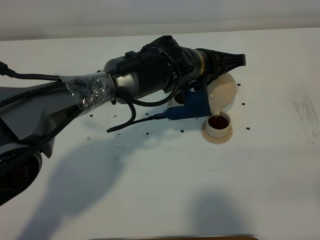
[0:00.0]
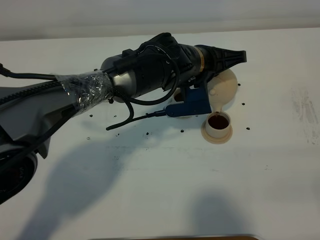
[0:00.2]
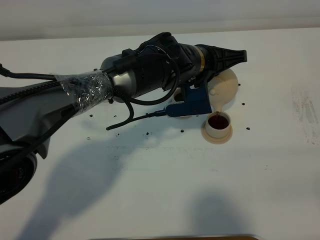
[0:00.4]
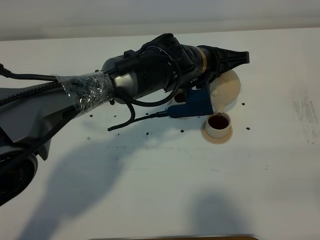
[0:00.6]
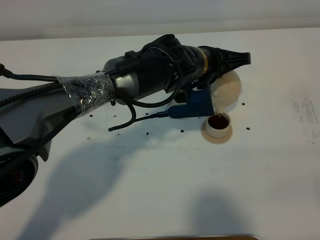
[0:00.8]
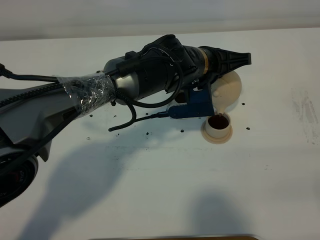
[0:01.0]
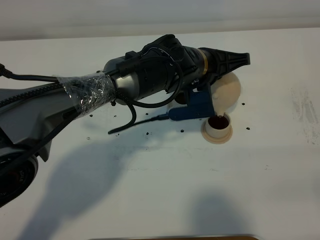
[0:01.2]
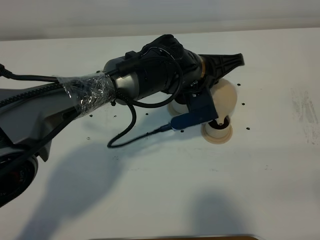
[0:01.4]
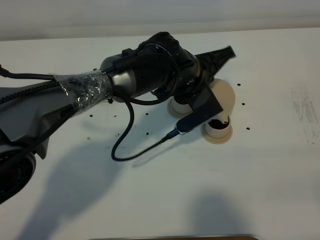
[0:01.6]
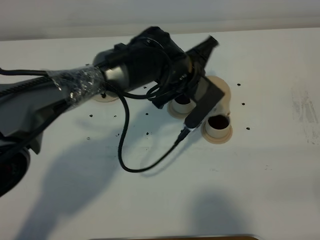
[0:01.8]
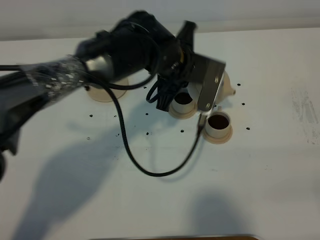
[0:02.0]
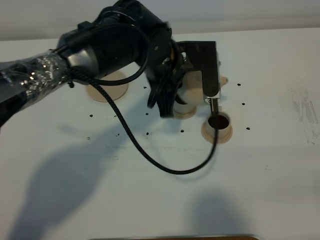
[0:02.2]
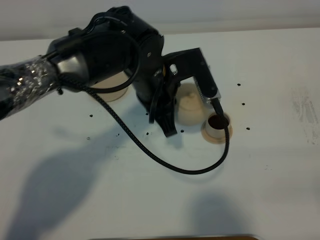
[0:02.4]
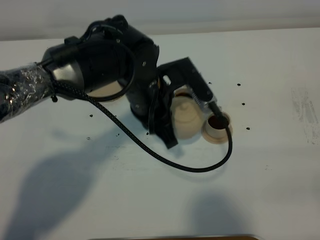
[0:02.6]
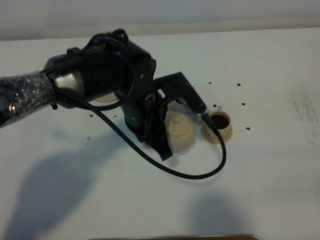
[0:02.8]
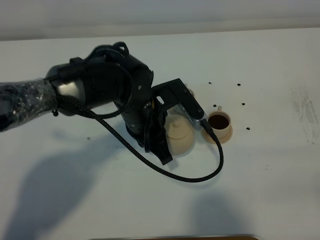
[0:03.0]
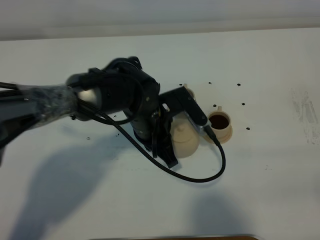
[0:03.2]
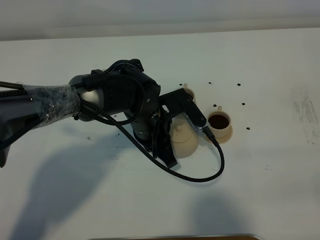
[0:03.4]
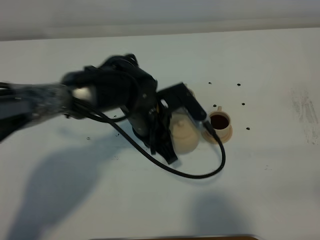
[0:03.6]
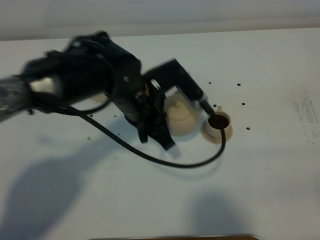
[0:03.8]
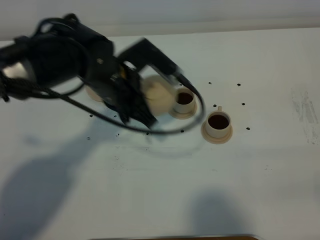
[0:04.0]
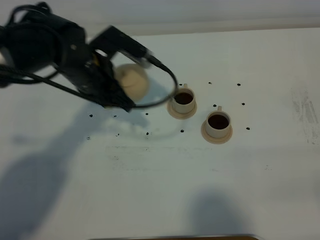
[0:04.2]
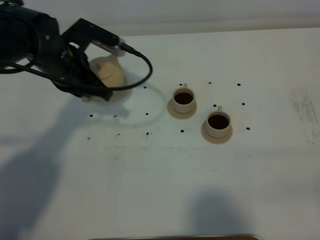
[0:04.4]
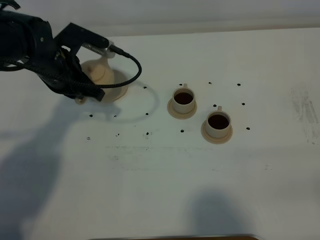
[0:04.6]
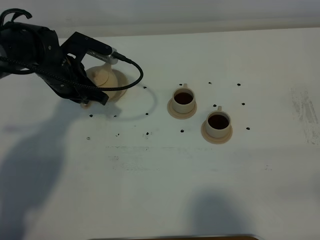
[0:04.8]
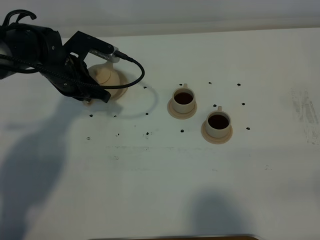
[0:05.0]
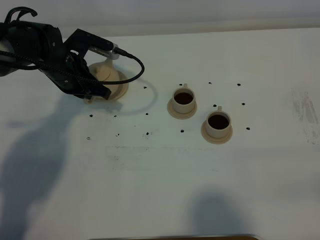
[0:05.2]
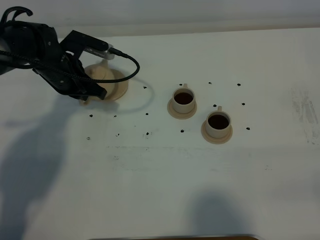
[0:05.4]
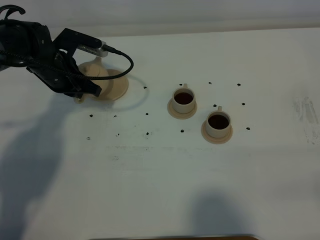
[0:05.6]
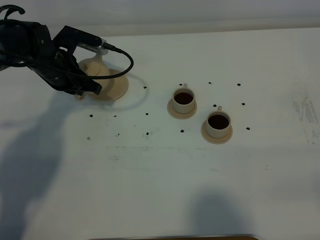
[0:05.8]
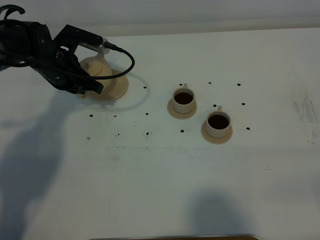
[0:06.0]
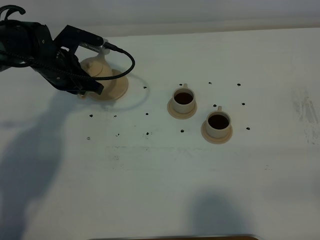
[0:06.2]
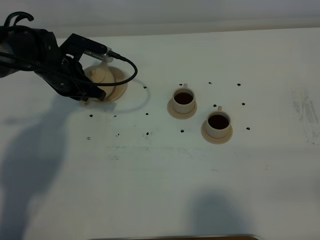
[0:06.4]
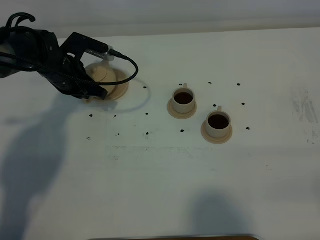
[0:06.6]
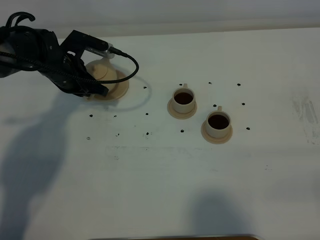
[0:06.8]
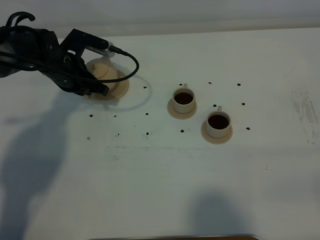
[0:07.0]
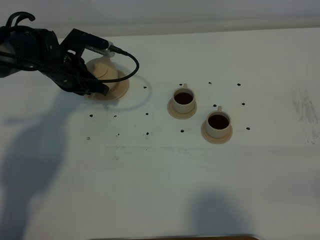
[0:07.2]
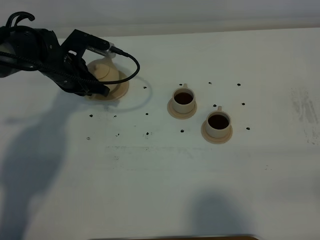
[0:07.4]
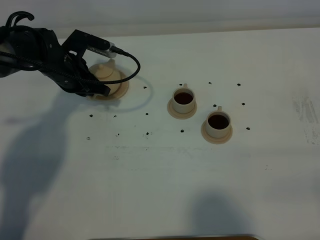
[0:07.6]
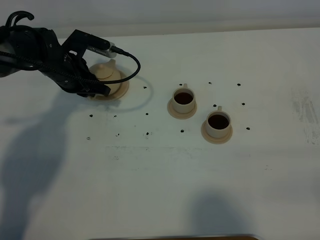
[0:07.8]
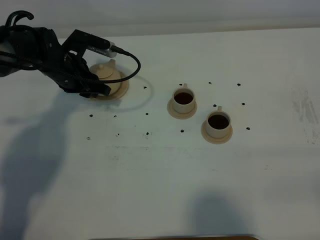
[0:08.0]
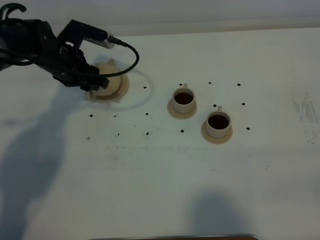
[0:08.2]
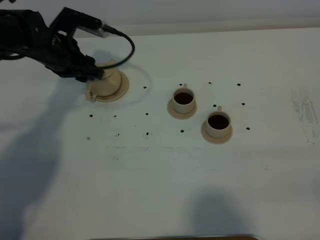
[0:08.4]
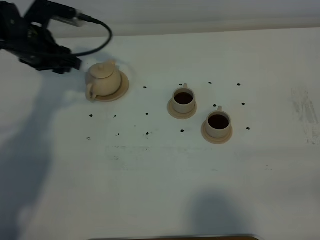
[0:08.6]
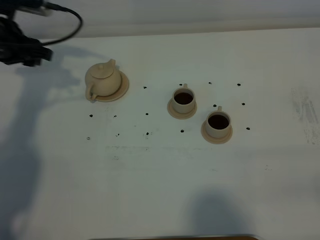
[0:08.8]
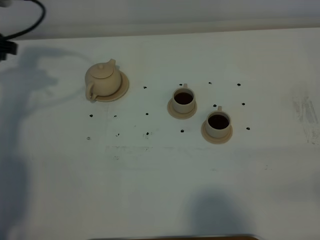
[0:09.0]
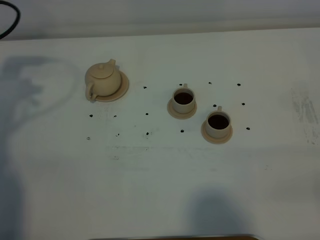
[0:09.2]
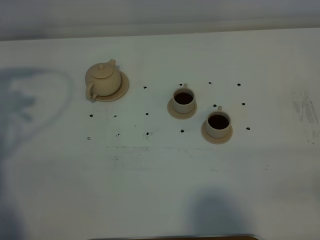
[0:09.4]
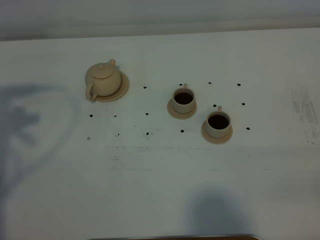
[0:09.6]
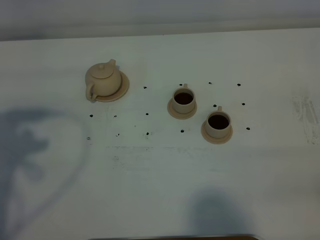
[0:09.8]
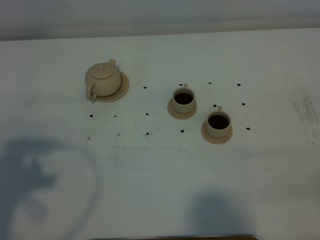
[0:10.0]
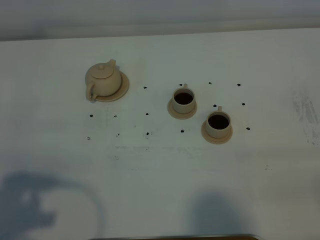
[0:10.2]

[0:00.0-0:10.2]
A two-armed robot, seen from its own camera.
Task of the whole recording: grasp the brown teapot and pour the tea into the two brown teacups one by one, put the brown teapot back in its original place.
0:00.0 to 0:01.4: The grippers move only a little.
0:01.4 to 0:03.0: The left gripper heads to the left and backward, covering roughly 10 cm.
0:03.0 to 0:04.4: The left gripper is displaced to the left and forward by approximately 15 cm.
0:04.4 to 0:05.8: The left gripper shifts roughly 10 cm downward and forward.
0:05.8 to 0:07.2: The grippers stay close to where they were, moving slightly.
0:07.2 to 0:08.8: The left gripper heads upward and to the left, covering some 15 cm, and opens its fingers.
0:08.8 to 0:10.2: The left gripper shifts roughly 35 cm backward.

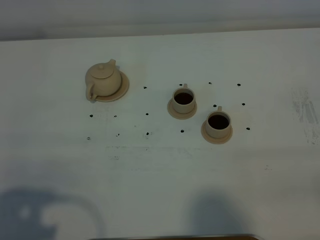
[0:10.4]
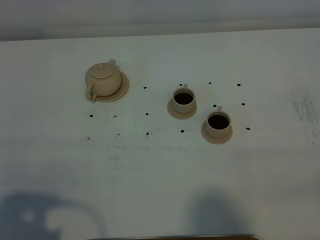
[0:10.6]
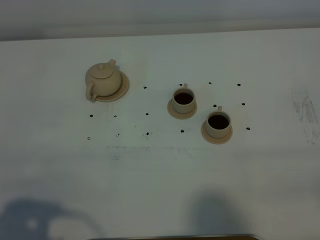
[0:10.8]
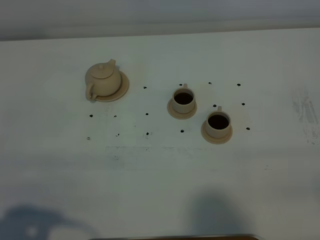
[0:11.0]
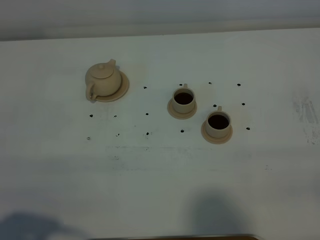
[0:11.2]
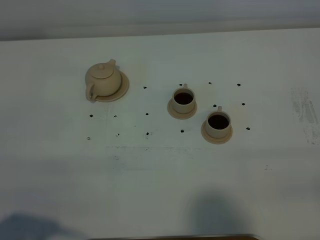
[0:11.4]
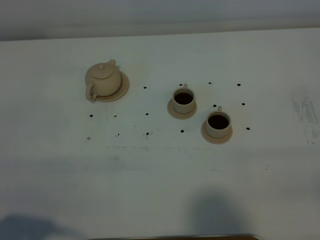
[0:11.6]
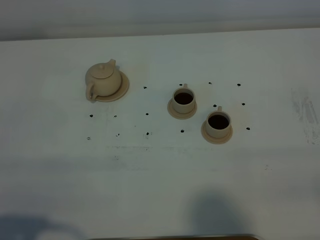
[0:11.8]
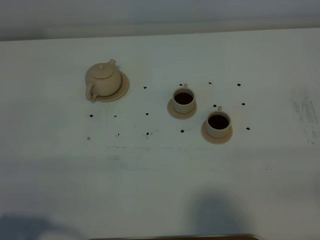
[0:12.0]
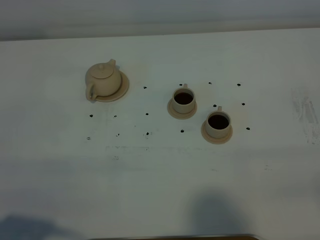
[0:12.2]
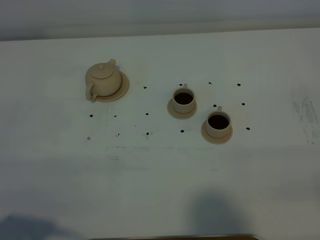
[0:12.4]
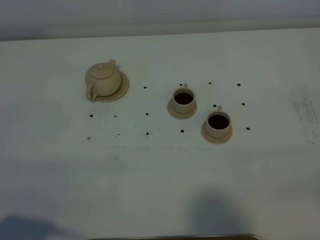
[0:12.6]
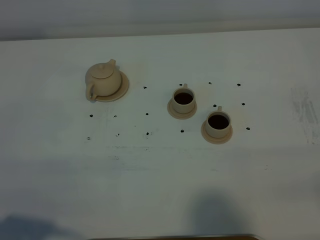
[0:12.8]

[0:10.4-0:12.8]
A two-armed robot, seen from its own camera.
Task of the whole recording: grasp the brown teapot and pour the tea into the two brown teacups one by one, put the brown teapot back in its original place.
0:10.4 to 0:11.6: The grippers move only a little.
0:11.6 to 0:12.8: Both grippers stay about where they are.

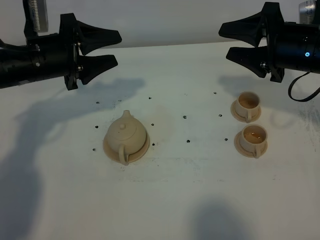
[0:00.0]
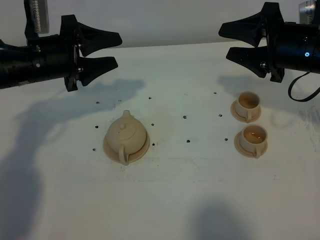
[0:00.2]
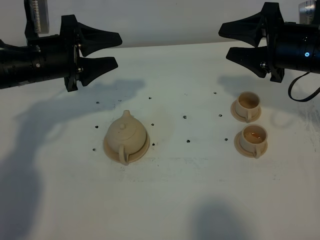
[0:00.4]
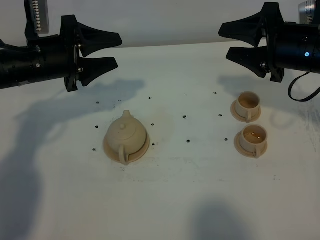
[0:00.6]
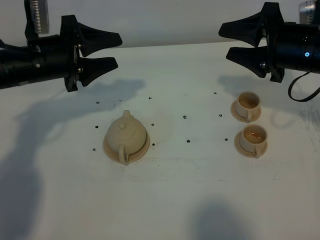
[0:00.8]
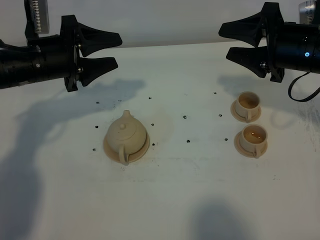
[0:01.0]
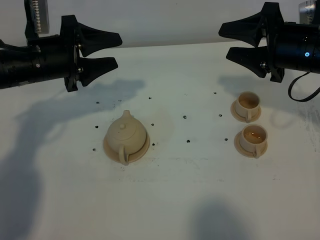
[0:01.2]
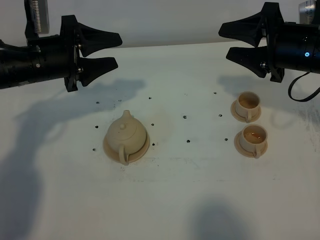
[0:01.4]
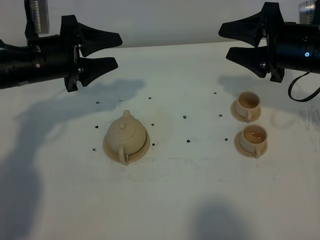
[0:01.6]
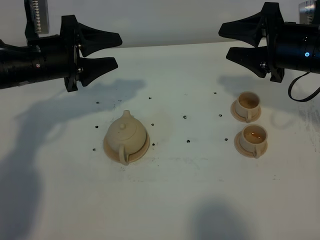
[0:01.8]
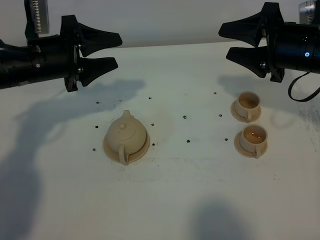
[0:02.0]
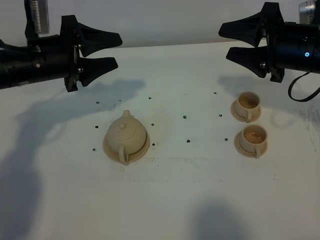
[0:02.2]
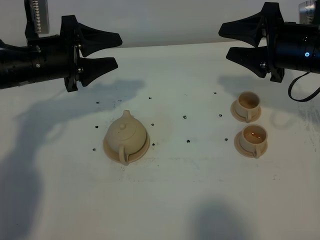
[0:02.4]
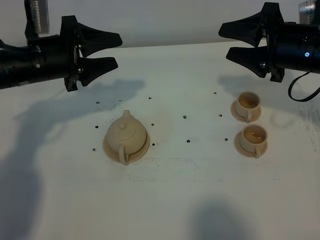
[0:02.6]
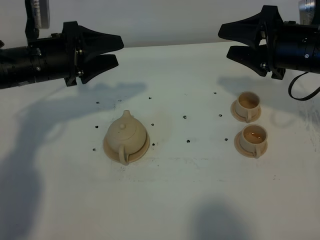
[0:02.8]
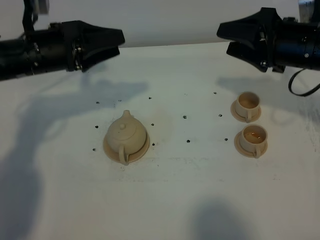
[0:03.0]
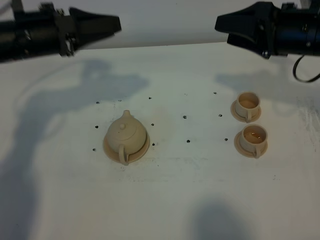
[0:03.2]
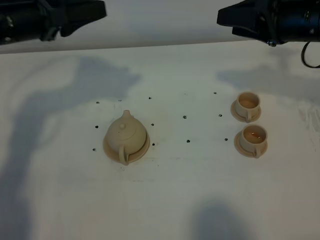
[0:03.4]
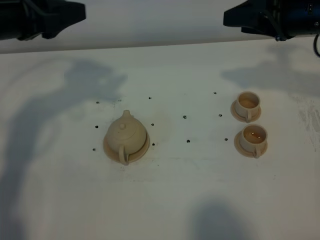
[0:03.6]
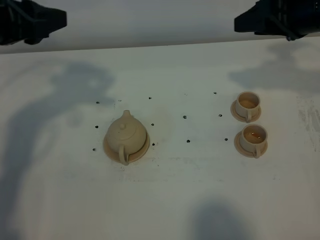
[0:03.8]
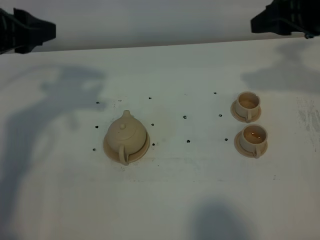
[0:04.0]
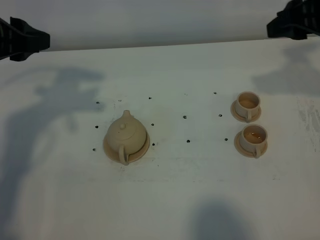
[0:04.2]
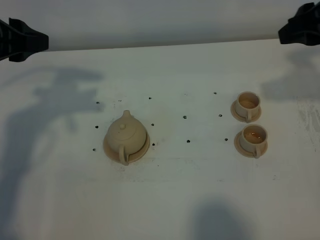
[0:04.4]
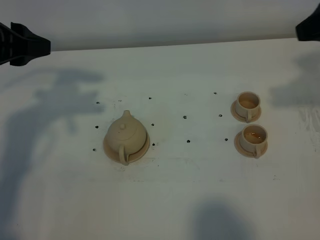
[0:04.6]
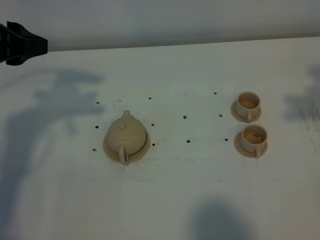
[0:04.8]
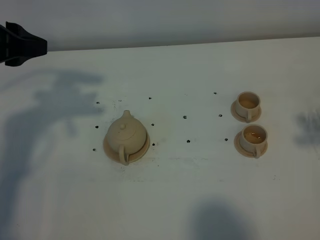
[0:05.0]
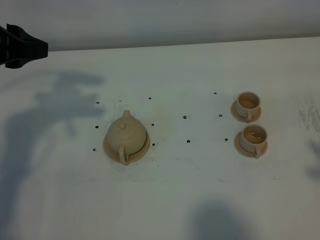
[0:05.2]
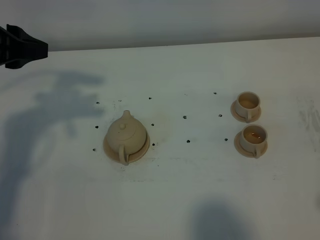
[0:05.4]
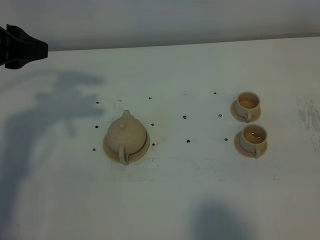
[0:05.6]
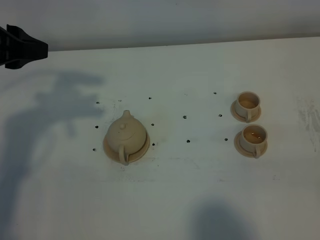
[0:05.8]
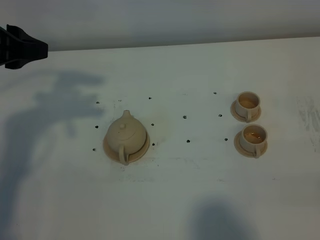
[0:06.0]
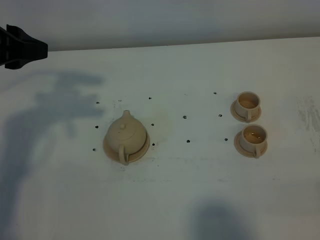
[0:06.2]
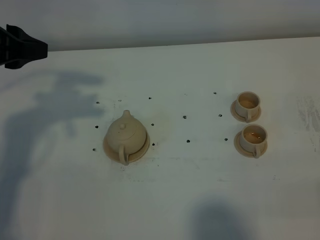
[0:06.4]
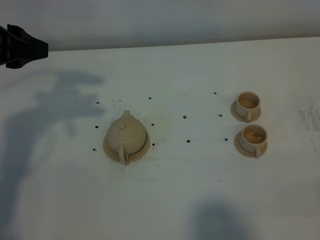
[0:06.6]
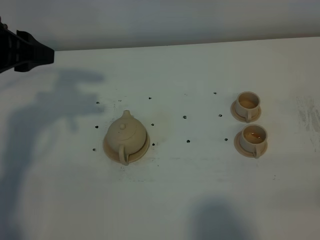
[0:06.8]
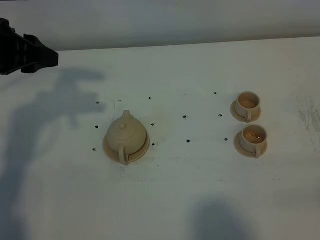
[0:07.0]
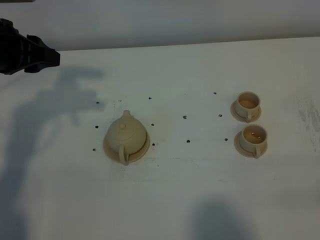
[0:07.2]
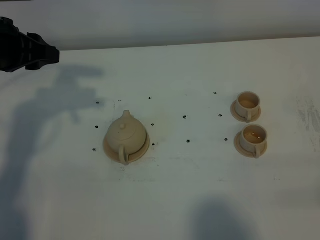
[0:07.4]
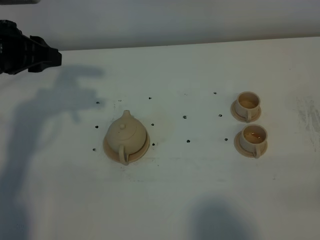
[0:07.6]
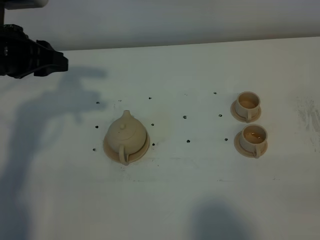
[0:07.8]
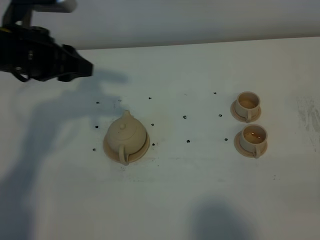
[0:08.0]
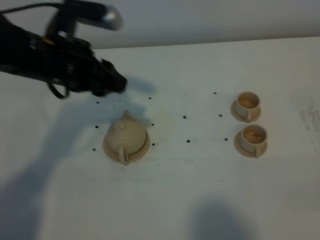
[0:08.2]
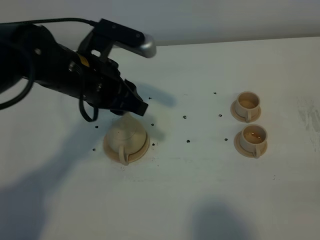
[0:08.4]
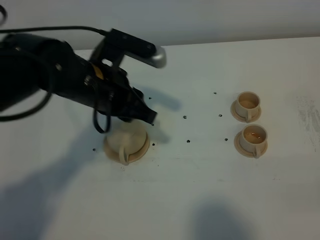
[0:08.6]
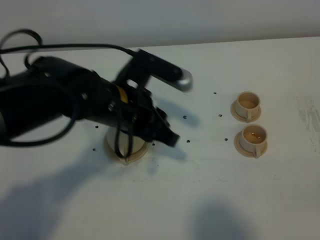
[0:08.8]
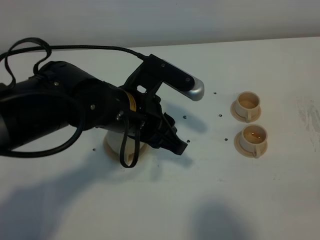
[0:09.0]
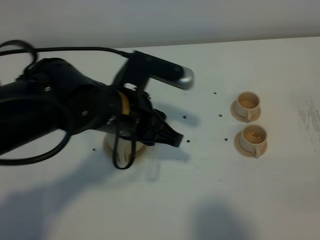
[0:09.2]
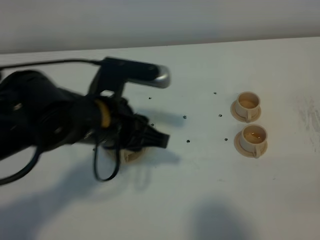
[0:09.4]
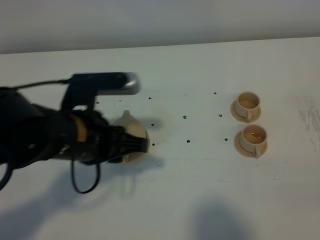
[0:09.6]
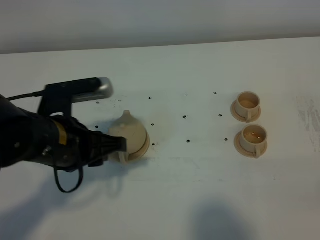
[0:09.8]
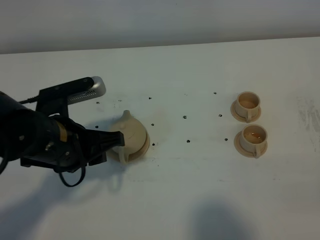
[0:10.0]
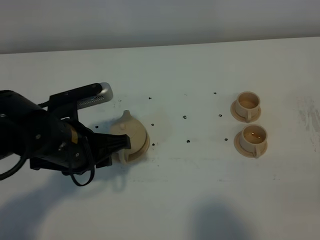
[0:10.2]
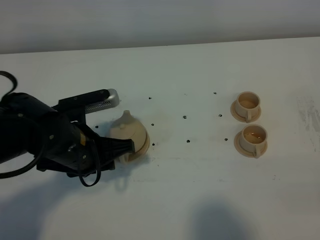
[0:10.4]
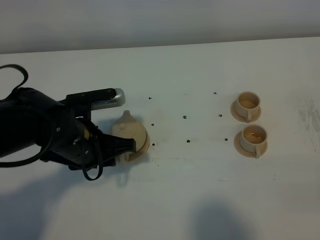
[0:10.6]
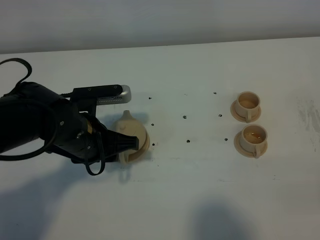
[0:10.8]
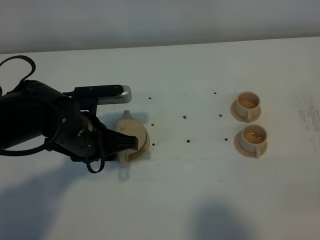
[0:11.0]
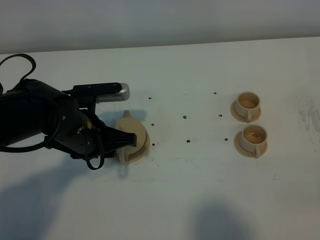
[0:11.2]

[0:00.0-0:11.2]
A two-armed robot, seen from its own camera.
Task of the whole recording: grasp the brown teapot and pour the tea into the two brown teacups one by one, put the brown teapot back in its original place.
0:00.0 to 0:01.6: The two grippers keep their place.
0:01.6 to 0:03.2: The left gripper moves upward, some 5 cm.
0:03.2 to 0:04.8: The right gripper is displaced backward and upward by approximately 20 cm; the left gripper goes about 10 cm backward and upward.
0:06.4 to 0:08.0: The left gripper travels downward and to the right by some 10 cm.
0:08.0 to 0:09.6: The left gripper shifts some 15 cm backward, to the right and downward.
0:09.6 to 0:11.2: The left gripper travels downward and forward by approximately 10 cm.
